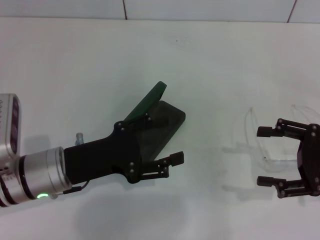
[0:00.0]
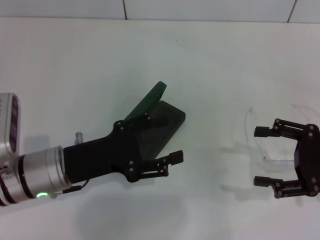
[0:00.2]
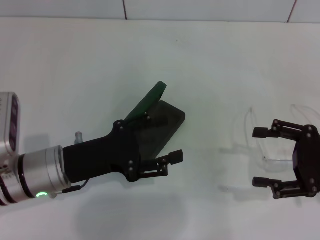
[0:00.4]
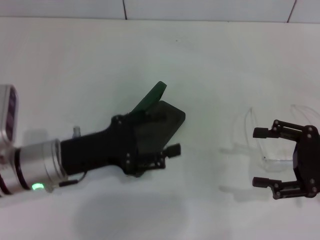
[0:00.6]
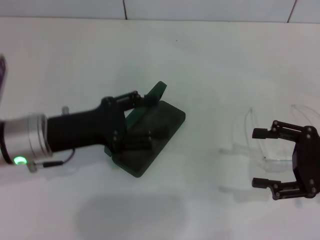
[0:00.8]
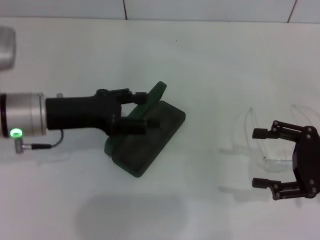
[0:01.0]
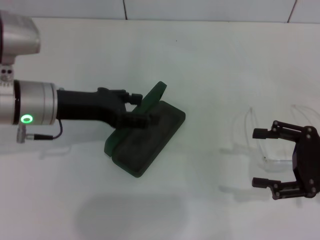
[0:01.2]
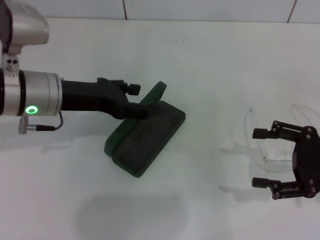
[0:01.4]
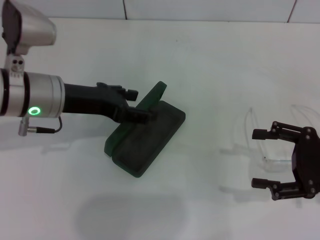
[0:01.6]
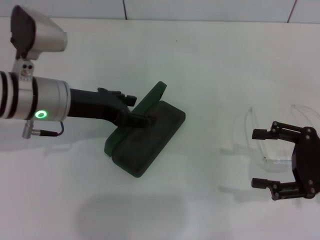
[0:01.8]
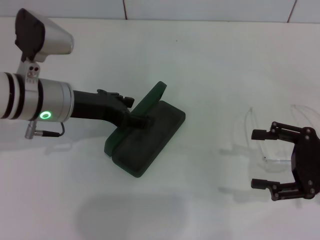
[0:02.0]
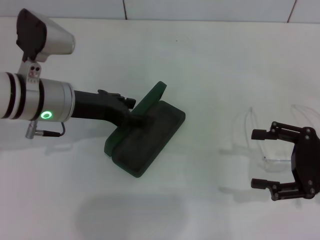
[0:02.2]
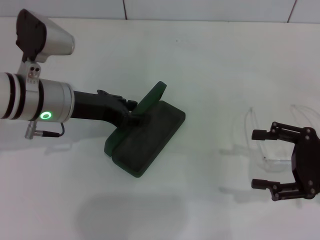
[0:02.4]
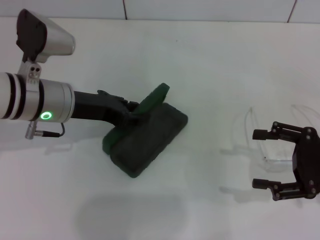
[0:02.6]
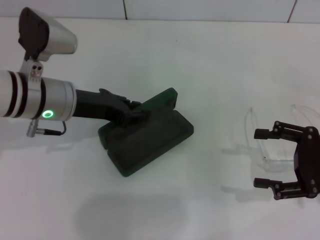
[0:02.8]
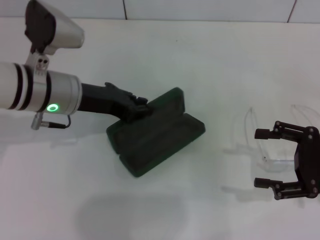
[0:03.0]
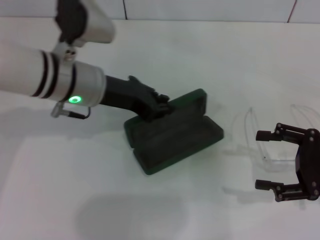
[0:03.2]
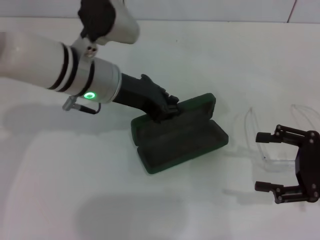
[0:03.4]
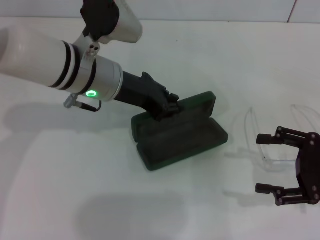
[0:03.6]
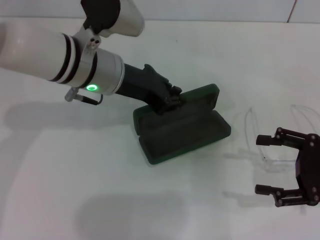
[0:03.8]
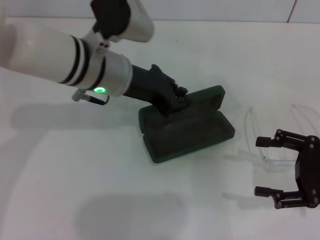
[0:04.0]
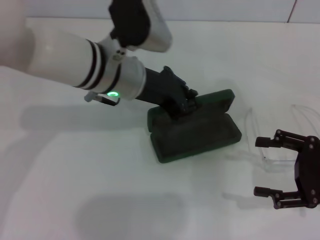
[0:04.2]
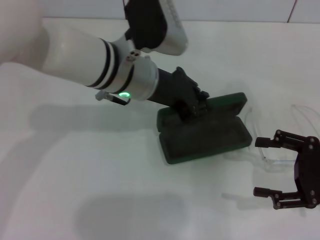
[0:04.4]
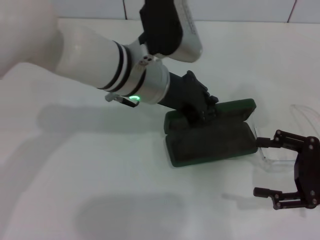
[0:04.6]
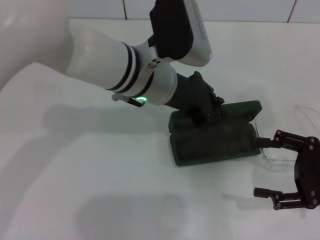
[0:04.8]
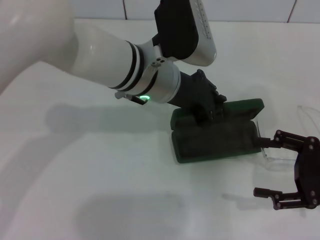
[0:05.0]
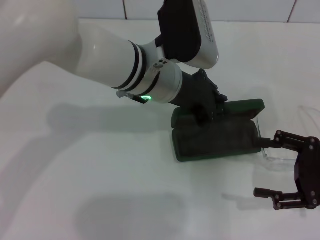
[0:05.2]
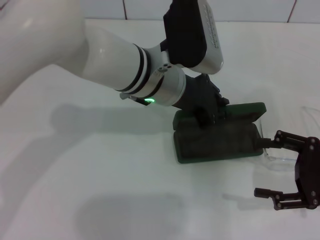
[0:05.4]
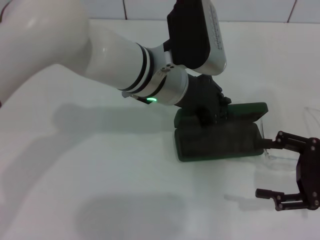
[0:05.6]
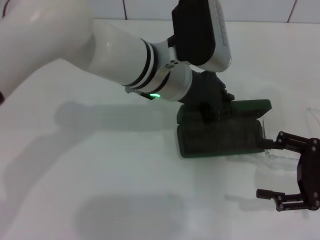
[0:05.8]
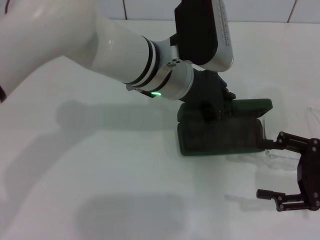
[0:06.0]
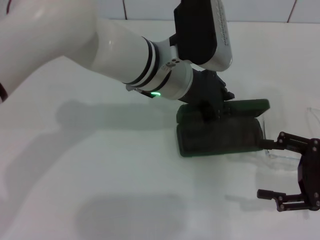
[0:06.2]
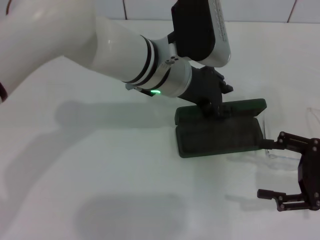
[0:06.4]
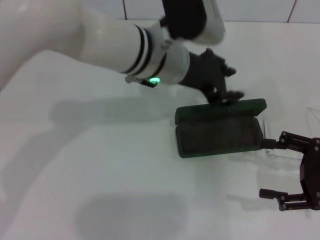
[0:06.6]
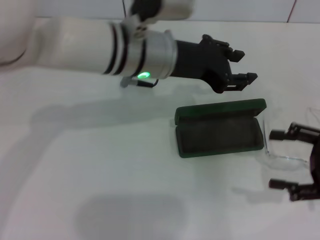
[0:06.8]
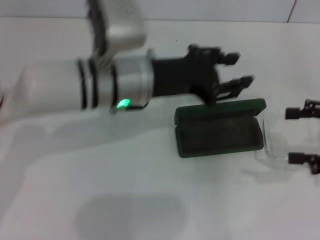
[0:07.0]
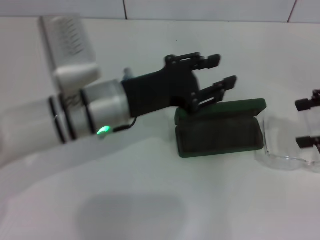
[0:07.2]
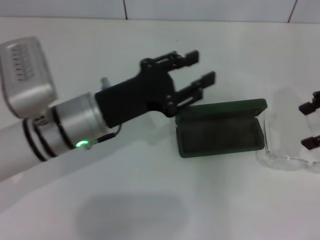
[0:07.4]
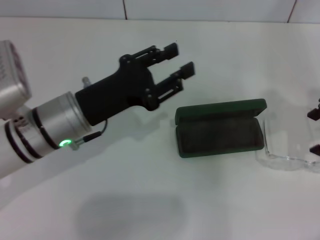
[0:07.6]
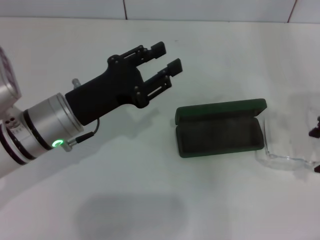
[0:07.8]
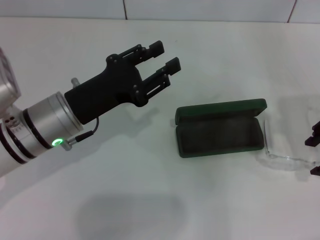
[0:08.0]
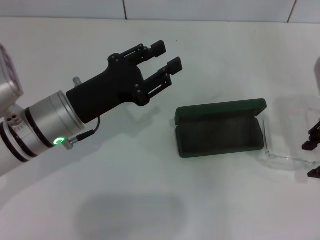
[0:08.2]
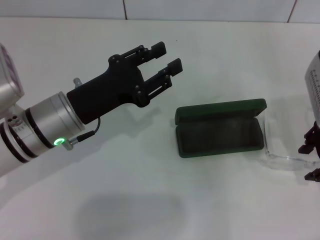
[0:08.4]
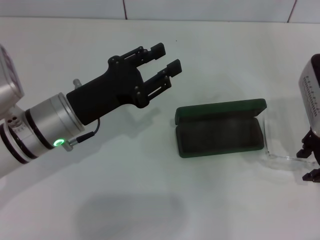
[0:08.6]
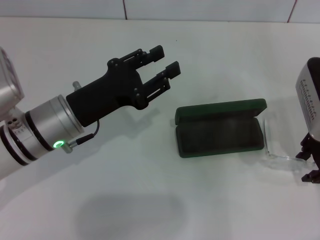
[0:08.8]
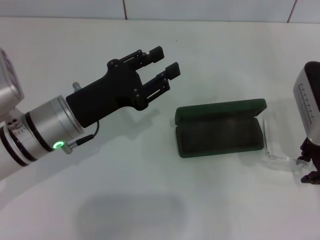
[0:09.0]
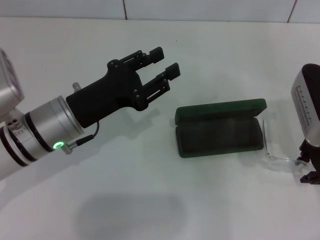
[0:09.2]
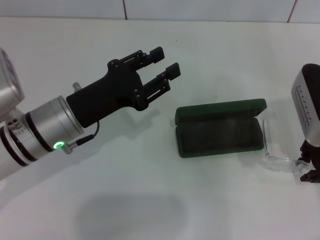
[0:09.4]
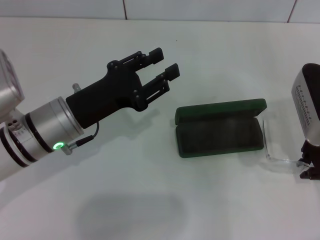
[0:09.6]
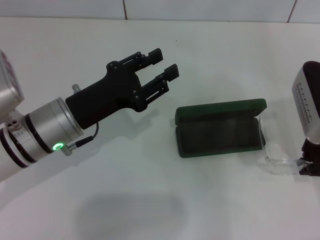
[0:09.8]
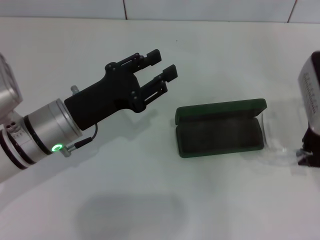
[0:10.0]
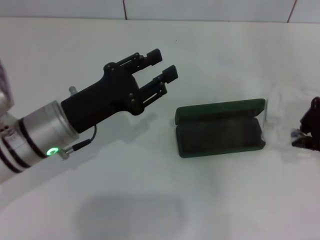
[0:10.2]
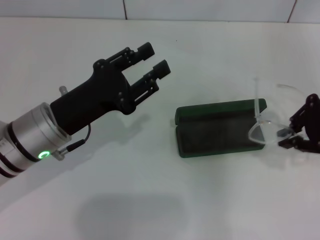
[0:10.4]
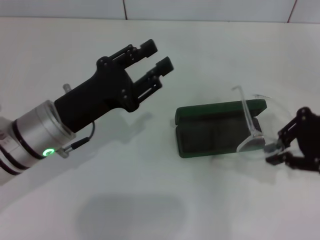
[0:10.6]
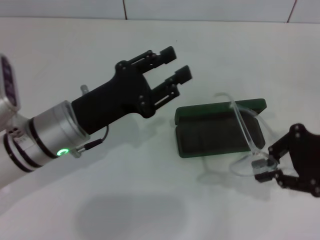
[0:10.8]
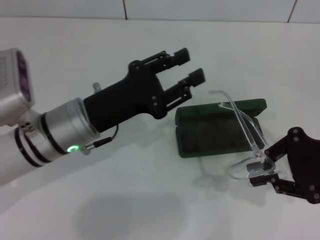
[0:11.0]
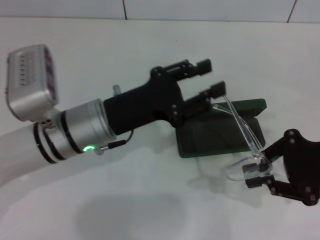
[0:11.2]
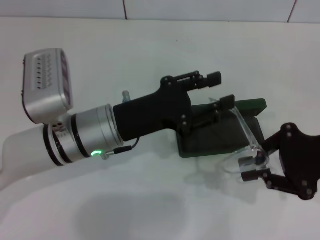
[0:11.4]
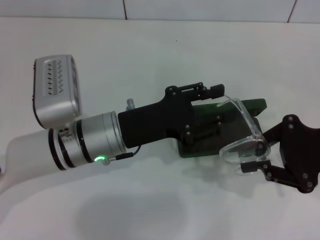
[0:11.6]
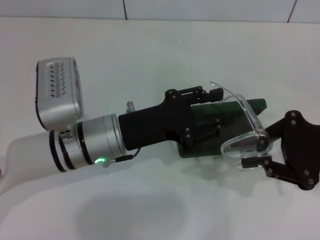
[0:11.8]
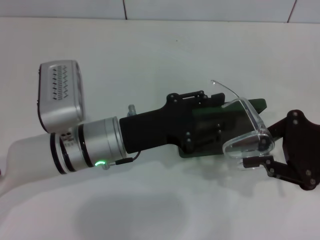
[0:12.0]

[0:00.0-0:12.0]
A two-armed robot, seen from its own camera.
Step, 0:00.0 to 0:02.6: Grab the glasses case with your left hand.
Step, 0:03.0 to 0:06.2: Place the glasses case in the center of the table with your left hand.
Step, 0:06.4 to 0:09.6: Grab the eyeglass frame with your right hand.
0:00.0 to 0:01.6: The left gripper shifts some 10 cm forward and upward.
0:01.6 to 0:03.0: The left gripper closes.
0:03.0 to 0:04.4: The left gripper is displaced to the right by approximately 10 cm.
0:06.0 to 0:07.6: The left gripper is displaced to the left, backward and downward by roughly 15 cm, and opens up. The right gripper heads upward and forward, covering approximately 15 cm.
0:07.6 to 0:09.0: The right gripper travels to the left and downward by about 10 cm, and closes.
0:09.0 to 0:10.4: The right gripper moves about 5 cm, and closes up.
0:10.4 to 0:12.0: The left gripper moves to the right, roughly 5 cm, while the right gripper shifts by some 5 cm.

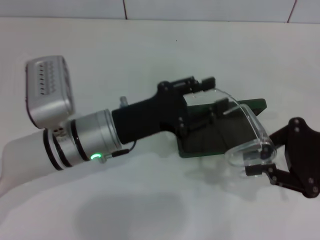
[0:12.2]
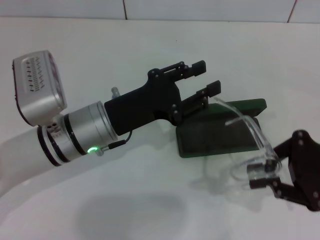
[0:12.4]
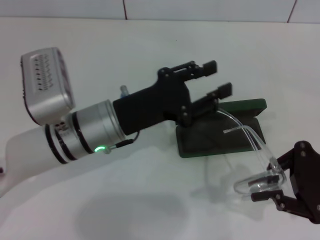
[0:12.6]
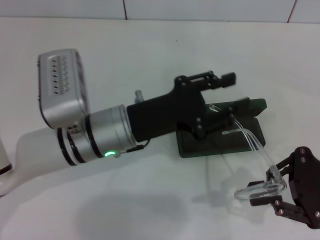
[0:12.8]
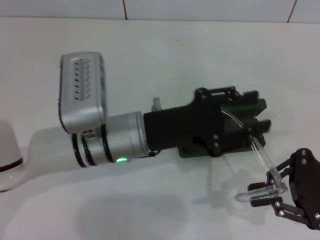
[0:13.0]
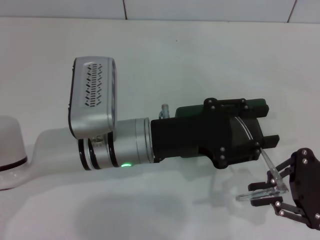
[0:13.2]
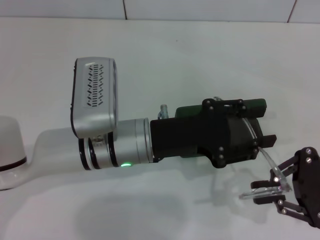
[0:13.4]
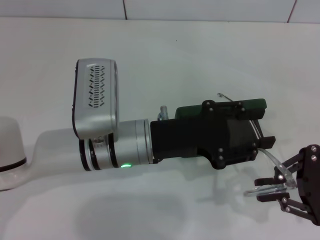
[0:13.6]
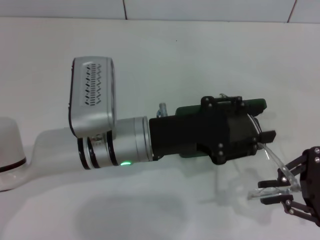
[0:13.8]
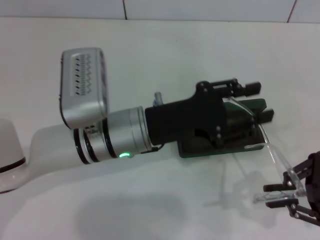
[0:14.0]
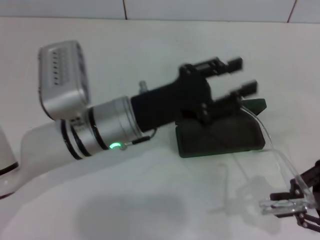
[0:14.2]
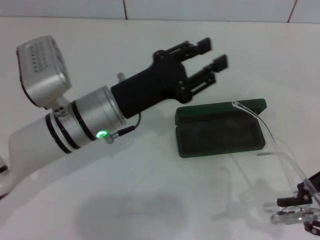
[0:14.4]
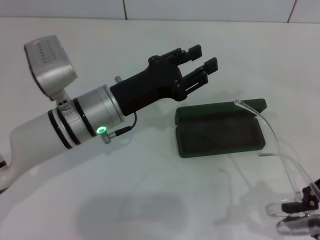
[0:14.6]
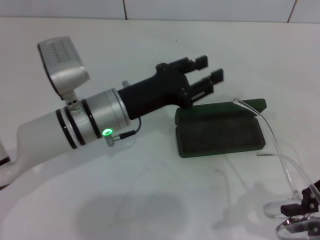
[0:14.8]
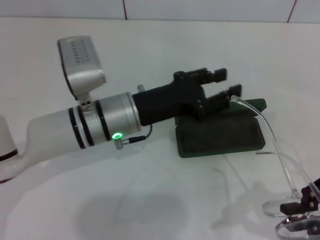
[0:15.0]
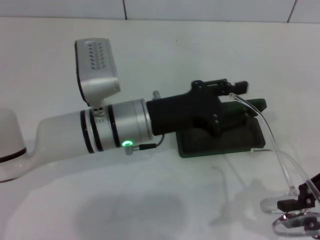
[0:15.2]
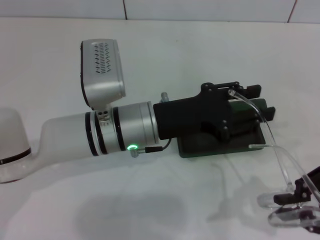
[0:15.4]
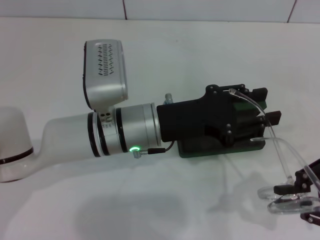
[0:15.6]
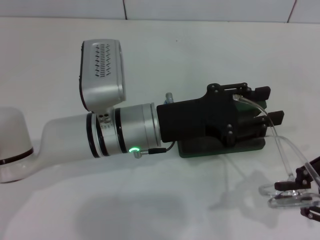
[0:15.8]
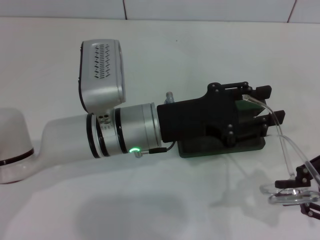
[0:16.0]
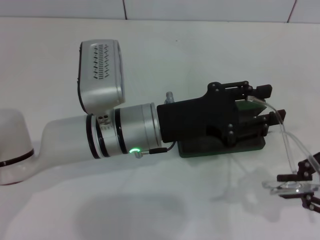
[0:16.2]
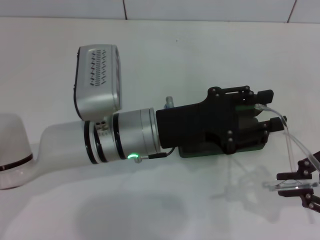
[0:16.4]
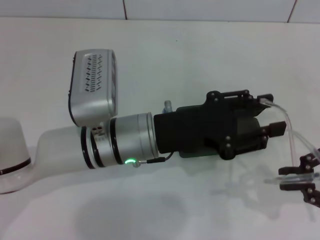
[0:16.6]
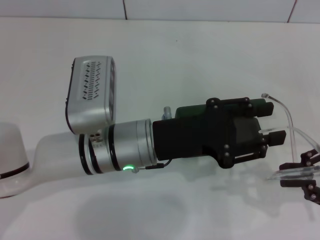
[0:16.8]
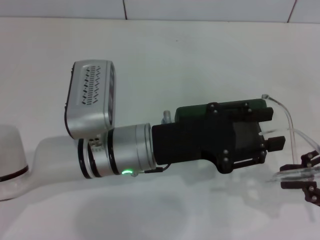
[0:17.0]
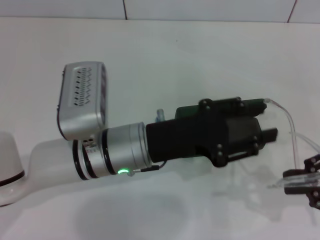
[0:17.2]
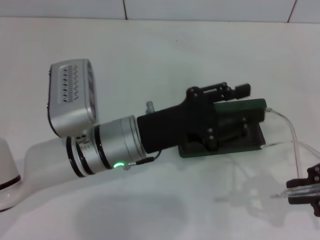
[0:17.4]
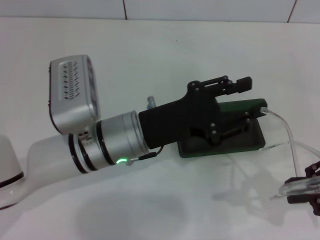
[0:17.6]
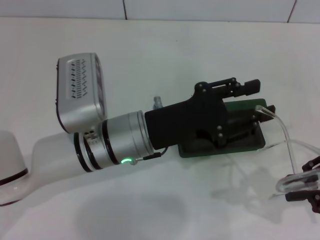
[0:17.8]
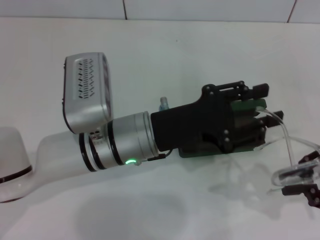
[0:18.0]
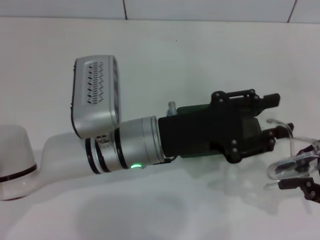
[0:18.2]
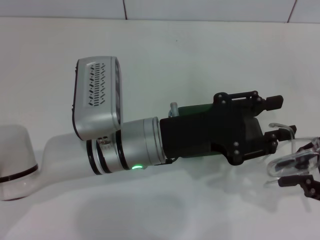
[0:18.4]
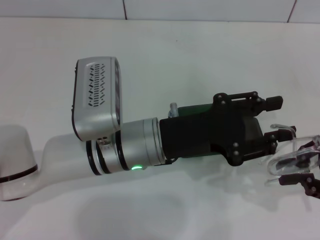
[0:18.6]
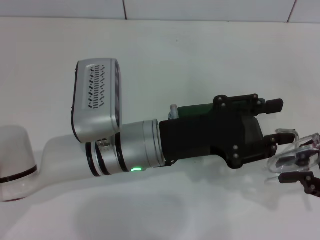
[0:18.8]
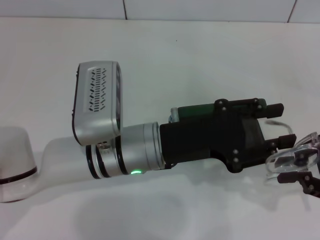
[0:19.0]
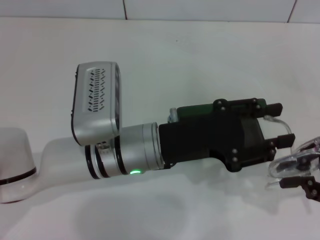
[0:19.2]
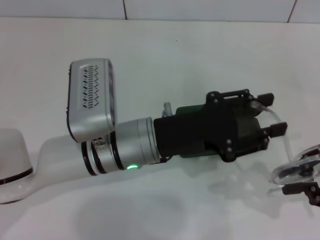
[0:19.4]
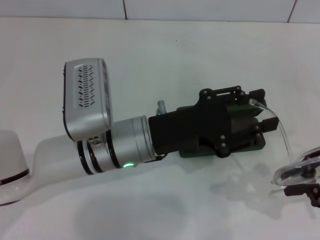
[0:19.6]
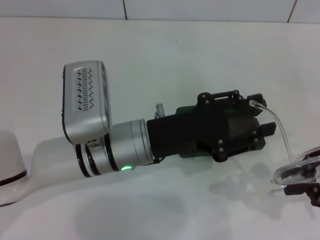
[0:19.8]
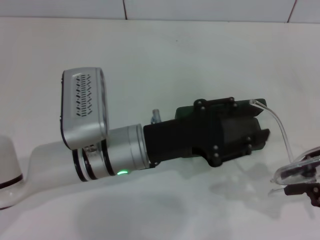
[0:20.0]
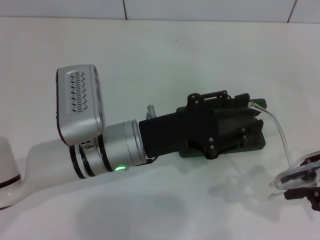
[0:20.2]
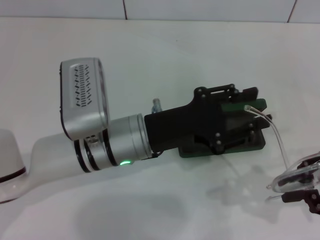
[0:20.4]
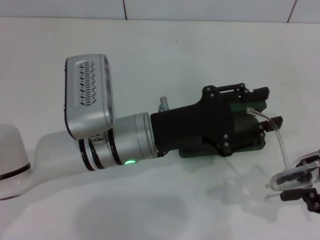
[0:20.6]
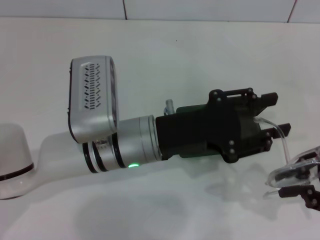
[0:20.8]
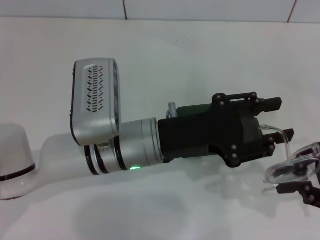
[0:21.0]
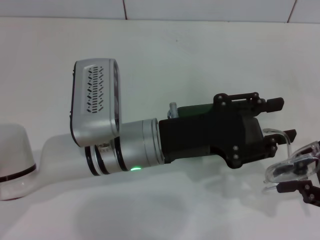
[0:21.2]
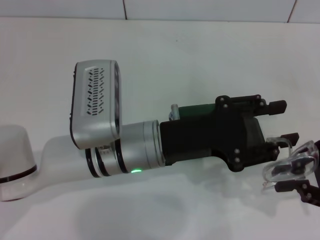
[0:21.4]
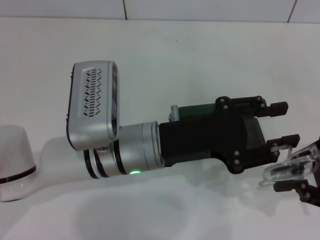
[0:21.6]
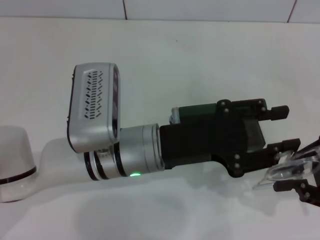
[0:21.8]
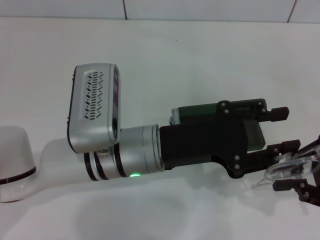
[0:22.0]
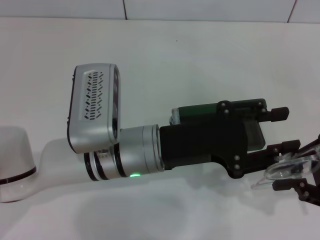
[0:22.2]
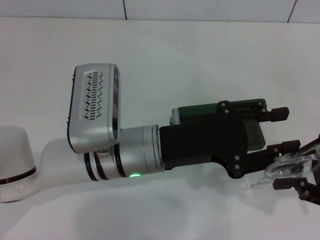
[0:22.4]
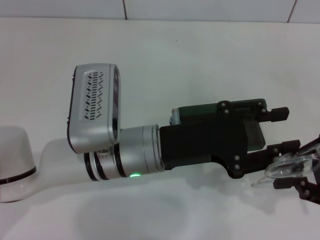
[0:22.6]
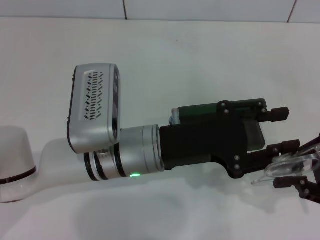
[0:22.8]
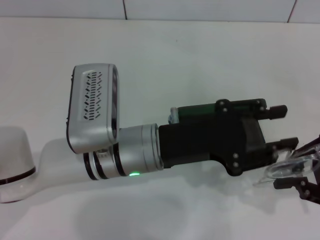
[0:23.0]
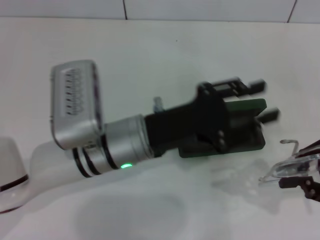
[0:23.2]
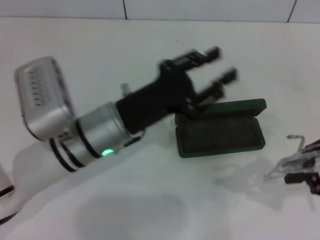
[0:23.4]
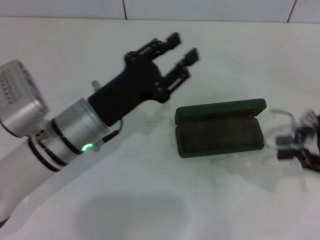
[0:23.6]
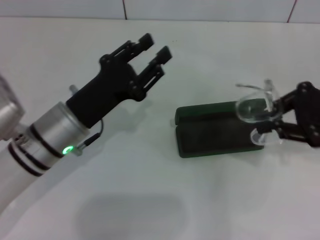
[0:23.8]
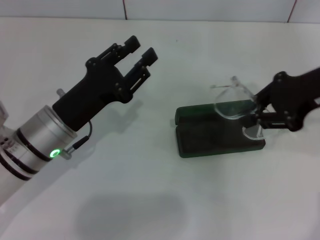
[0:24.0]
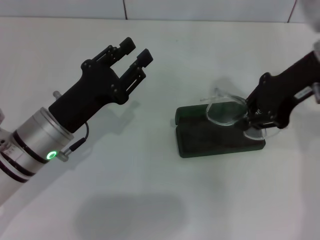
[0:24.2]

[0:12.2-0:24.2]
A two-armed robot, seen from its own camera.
Step, 0:12.2 to 0:22.8: Fold the frame with your left hand.
0:15.2 to 0:16.6: The grippers stay close to where they were, moving slightly.
0:16.6 to 0:21.2: There are only small adjustments of the grippers.
0:21.2 to 0:22.6: The two grippers keep their place.
0:22.6 to 0:24.2: The right gripper shifts about 20 cm forward, to the left and upward, while the left gripper heads to the left, covering some 10 cm.
